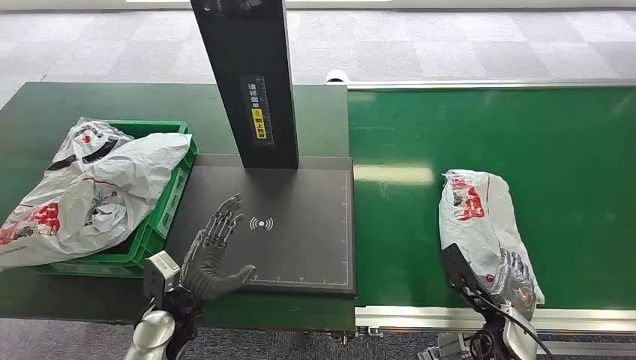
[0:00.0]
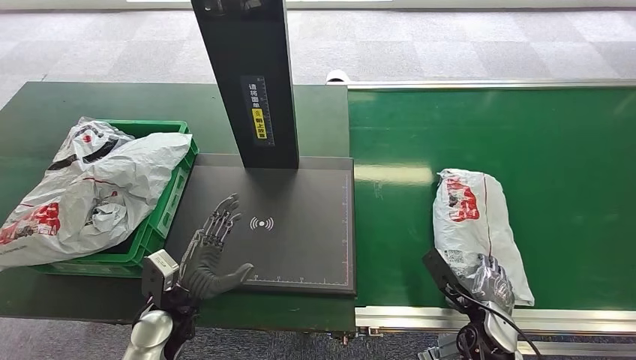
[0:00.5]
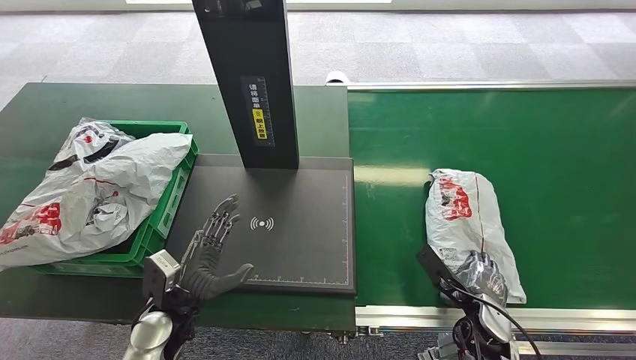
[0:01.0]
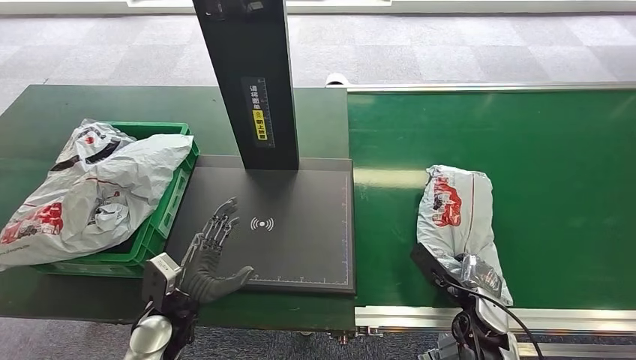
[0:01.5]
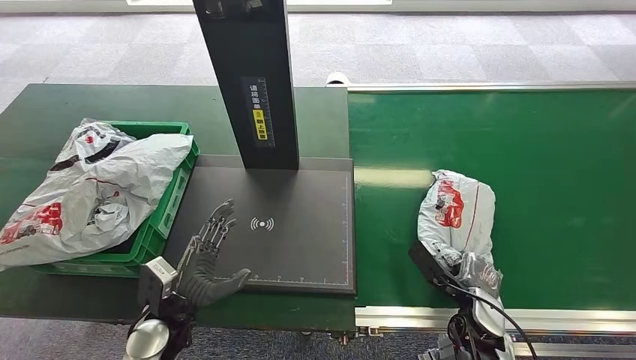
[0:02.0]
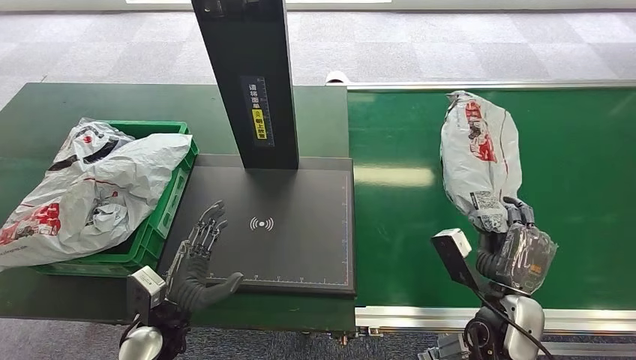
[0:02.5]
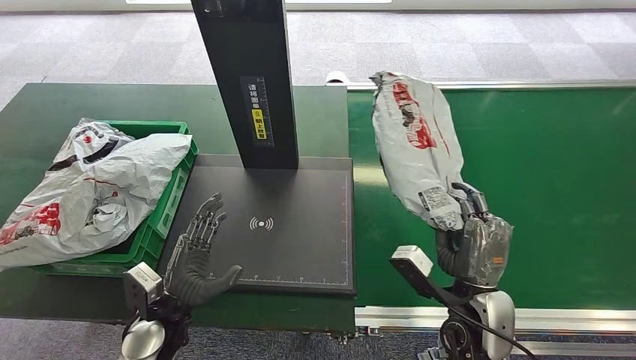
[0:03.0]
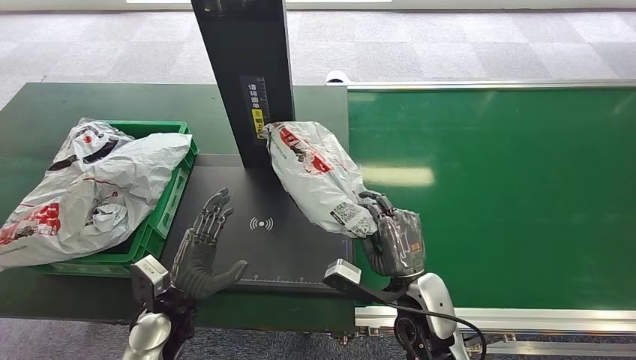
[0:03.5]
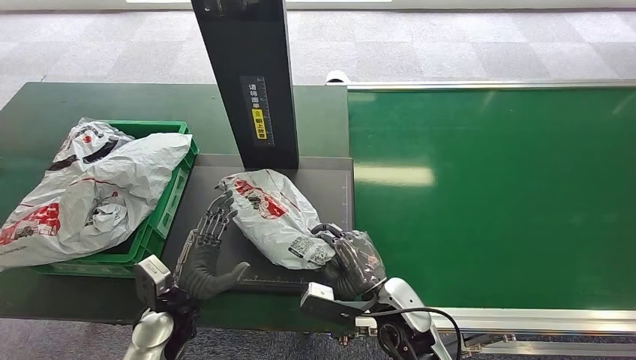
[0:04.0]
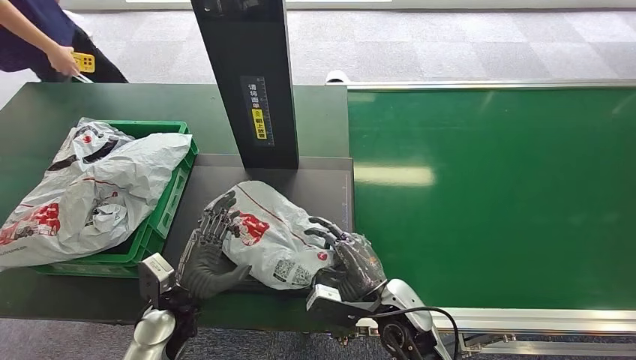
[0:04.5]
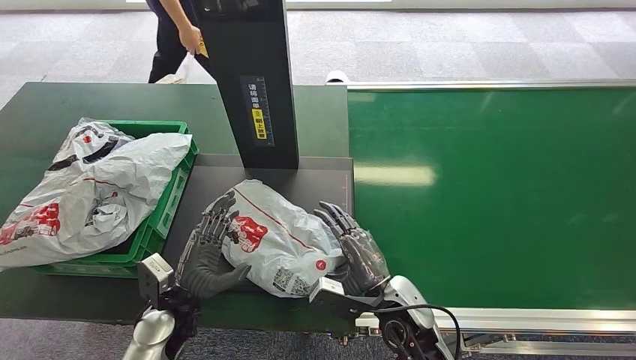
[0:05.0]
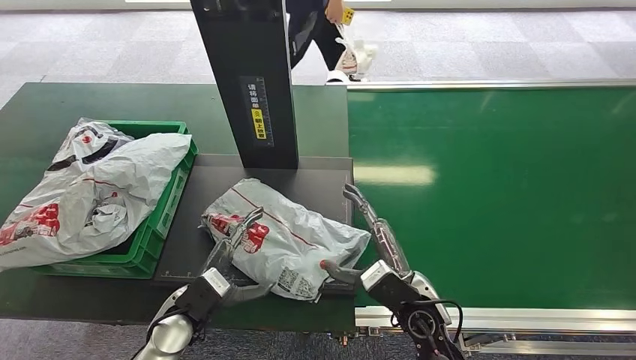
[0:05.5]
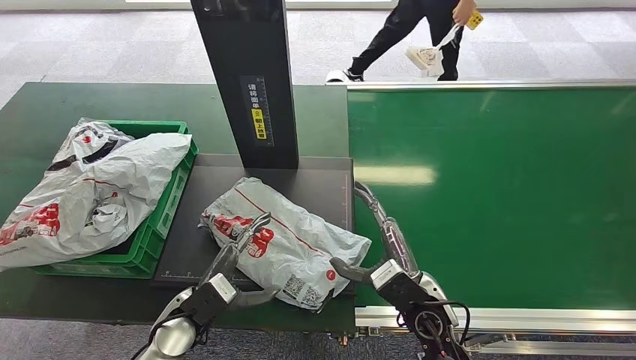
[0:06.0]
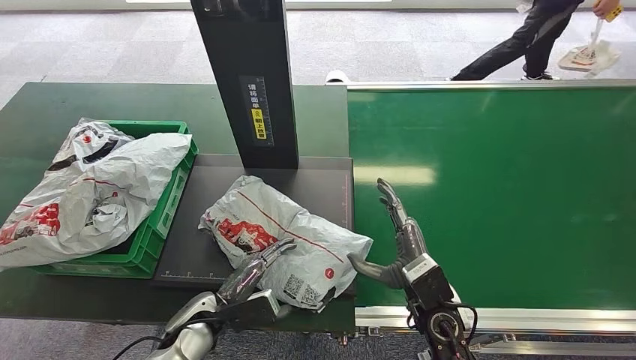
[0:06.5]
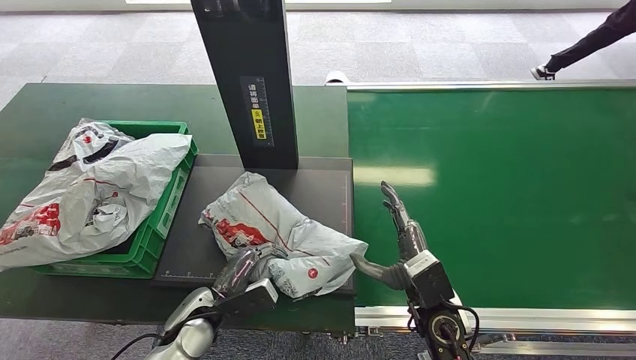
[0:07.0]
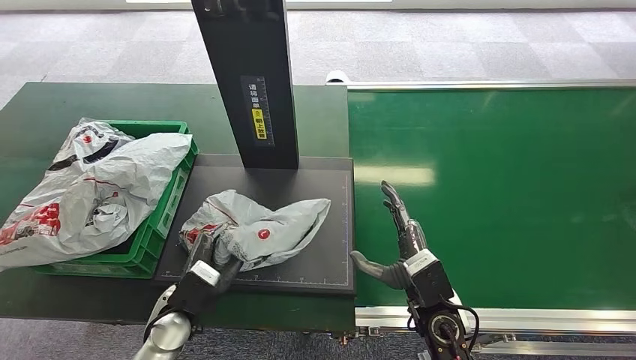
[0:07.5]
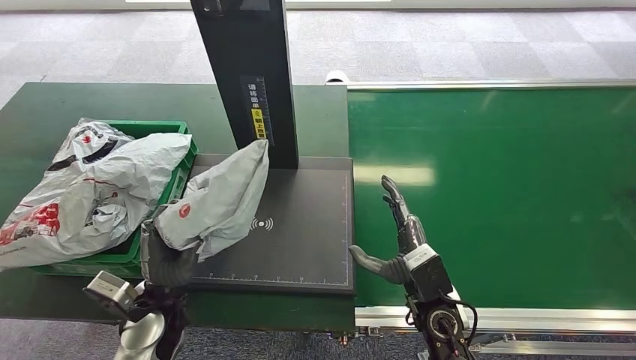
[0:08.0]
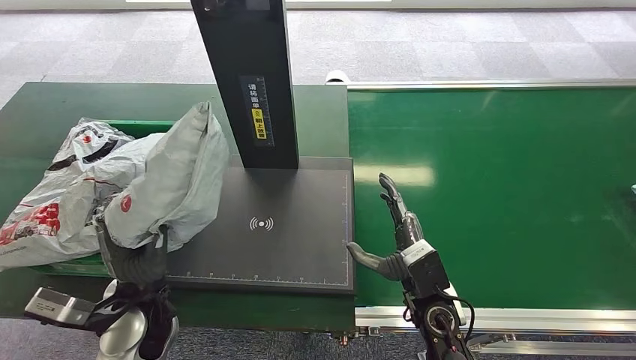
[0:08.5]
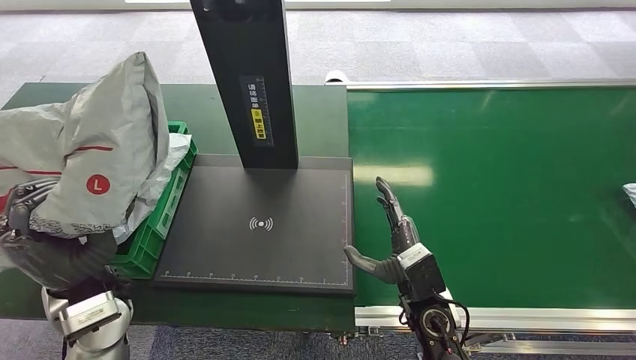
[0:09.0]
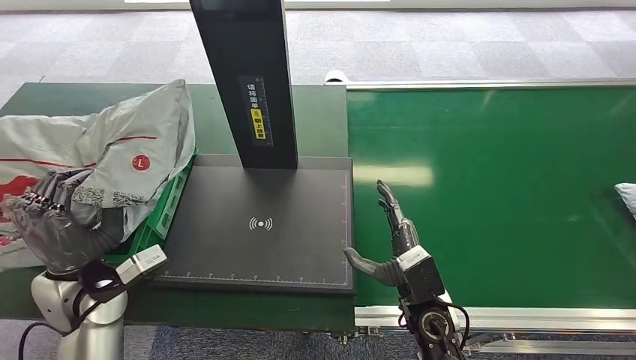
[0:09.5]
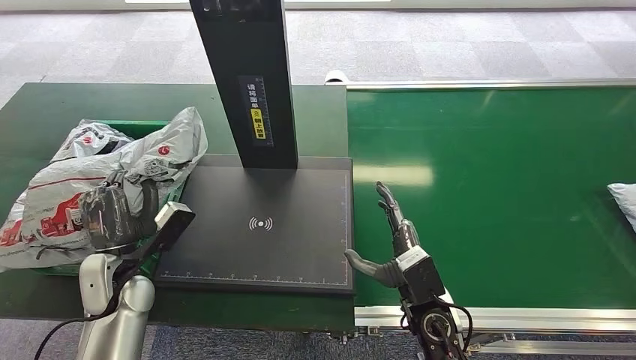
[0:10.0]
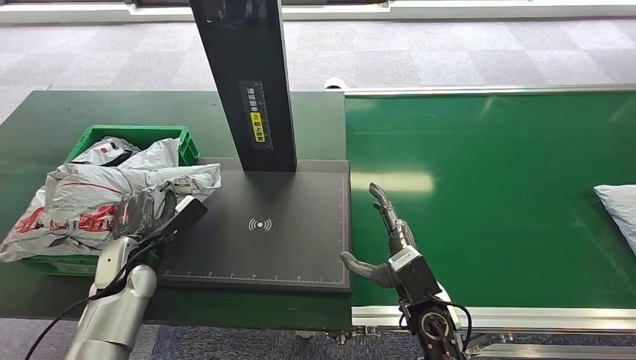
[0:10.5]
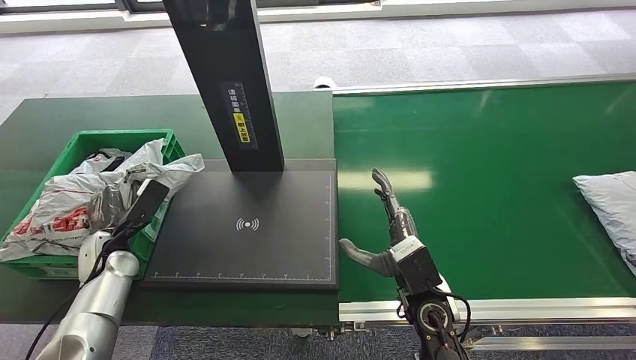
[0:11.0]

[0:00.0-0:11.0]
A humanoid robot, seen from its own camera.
Step, 0:00.0 to 0:02.0: Pick up the package from the conveyor belt.
Step, 0:04.0 to 0:05.5: Place the package onto the inbound machine.
Step, 0:06.0 to 0:08.0: Pick up the package from the inbound machine.
0:07.5 to 0:09.0: The left hand shifts approximately 15 cm upward.

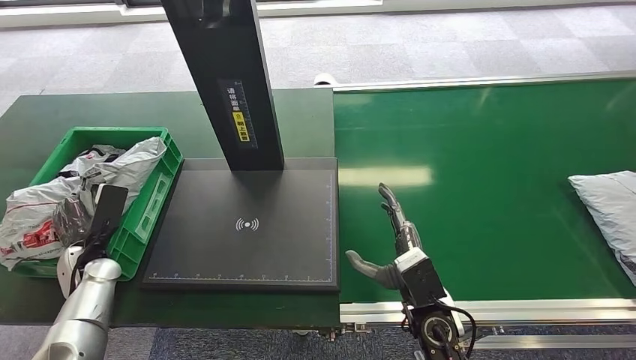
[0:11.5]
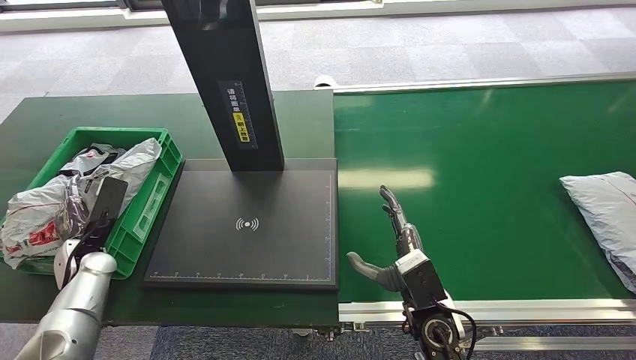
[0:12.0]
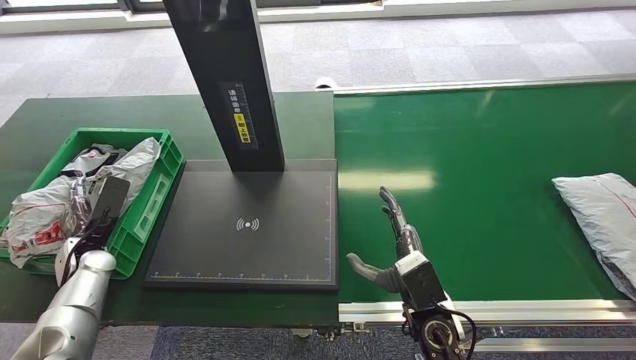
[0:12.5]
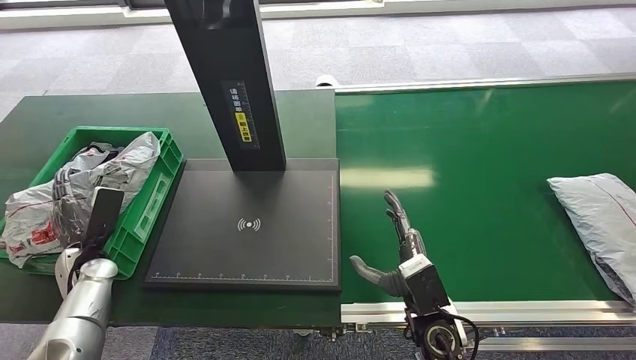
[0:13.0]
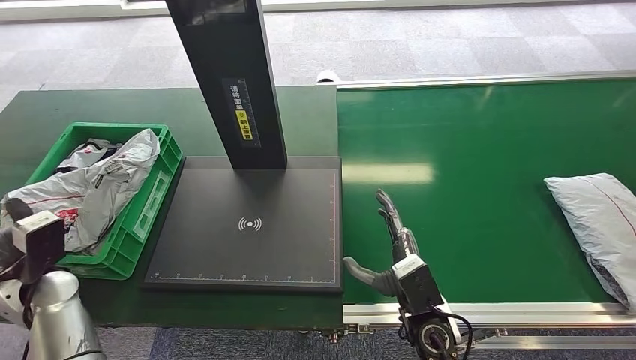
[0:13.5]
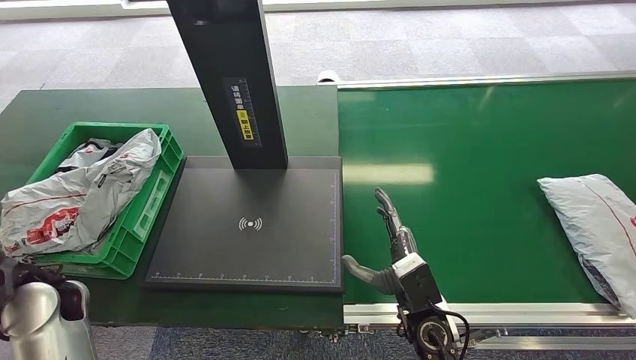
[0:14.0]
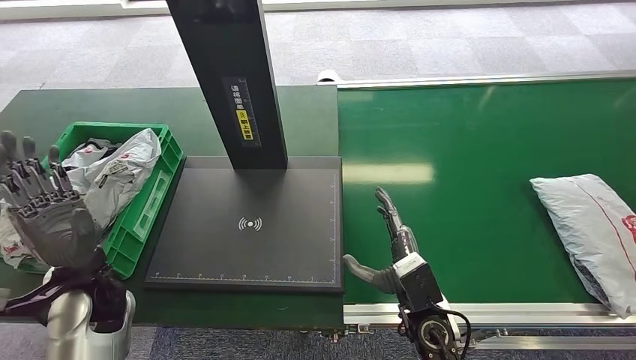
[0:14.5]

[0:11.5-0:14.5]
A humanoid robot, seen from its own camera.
Step, 0:11.5 to 0:14.5: Place the package into the parcel locker.
0:11.5 to 0:13.0: The hands make only small movements.

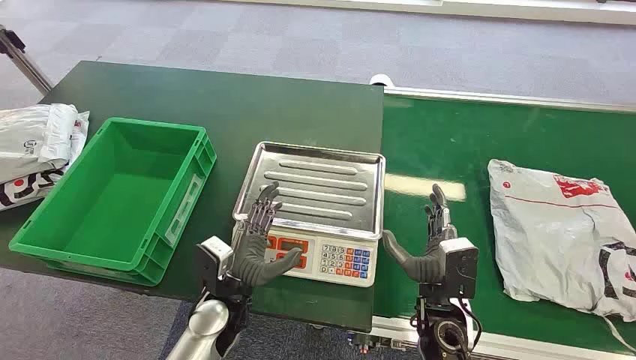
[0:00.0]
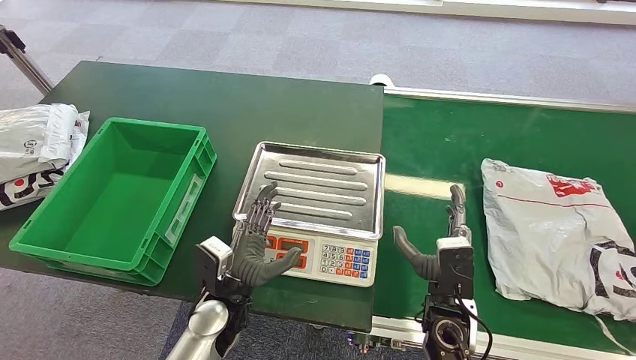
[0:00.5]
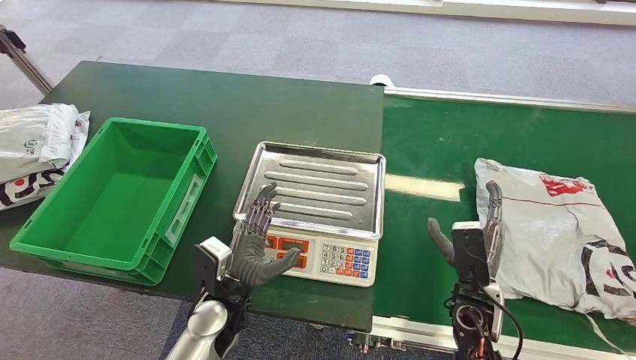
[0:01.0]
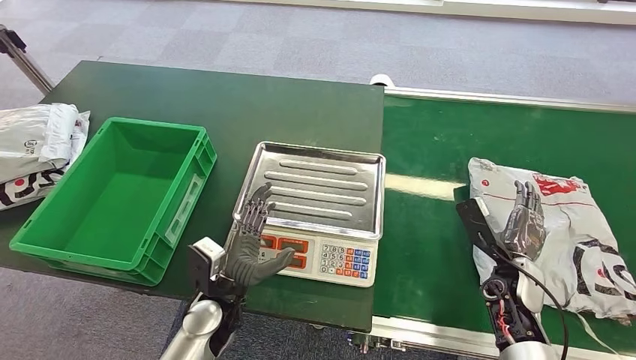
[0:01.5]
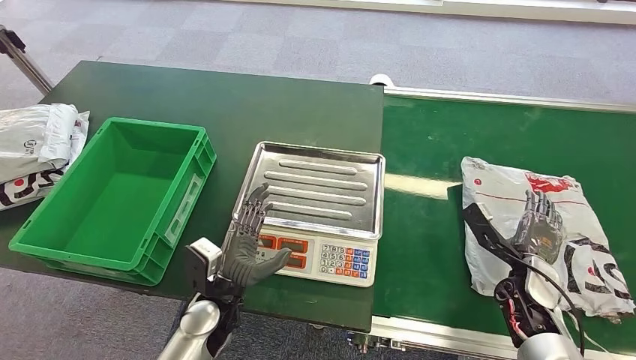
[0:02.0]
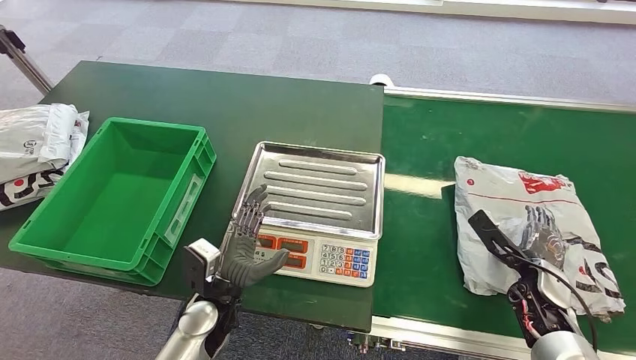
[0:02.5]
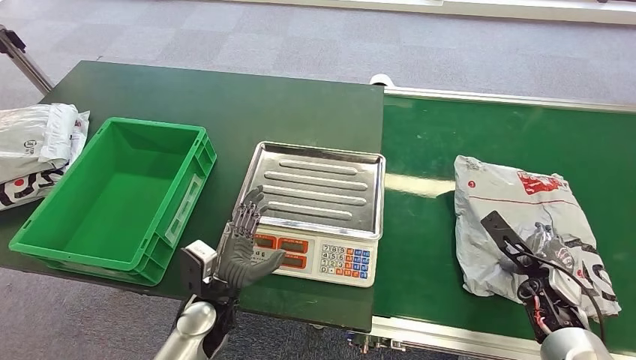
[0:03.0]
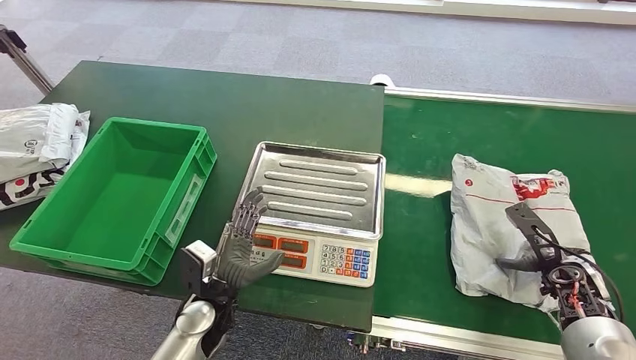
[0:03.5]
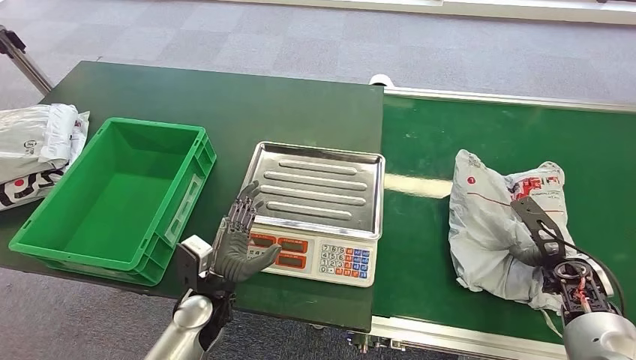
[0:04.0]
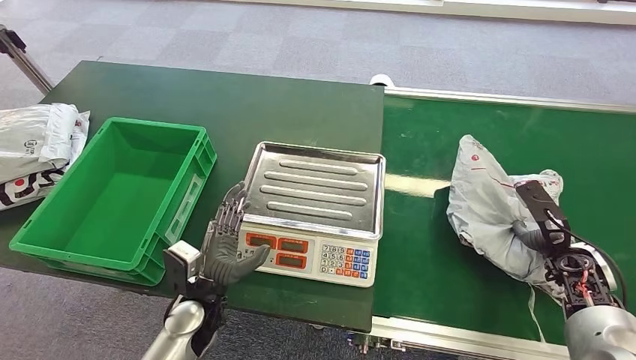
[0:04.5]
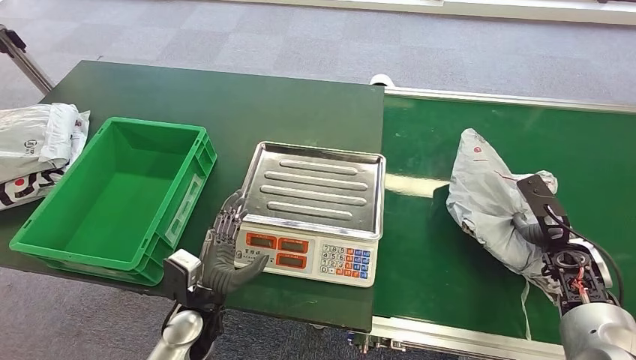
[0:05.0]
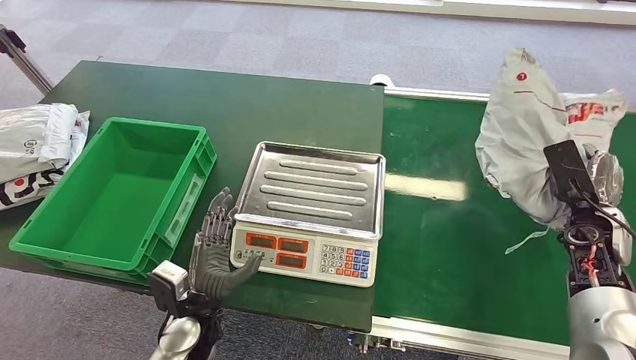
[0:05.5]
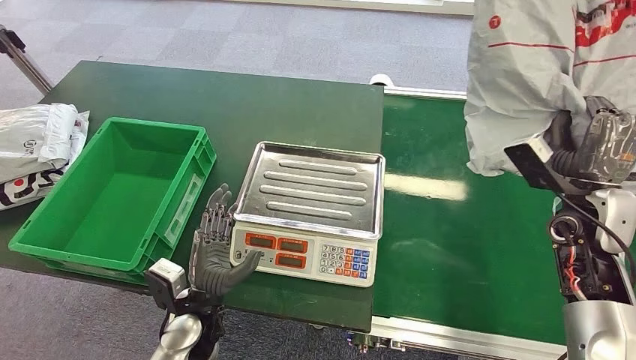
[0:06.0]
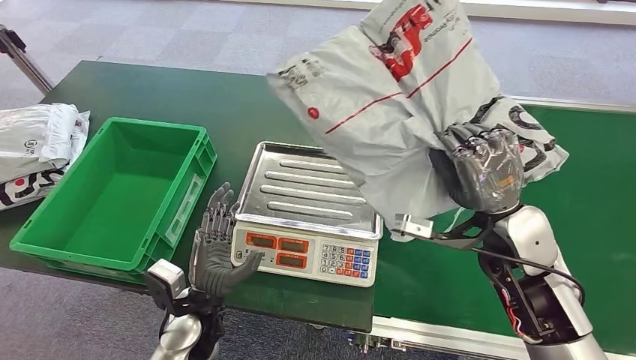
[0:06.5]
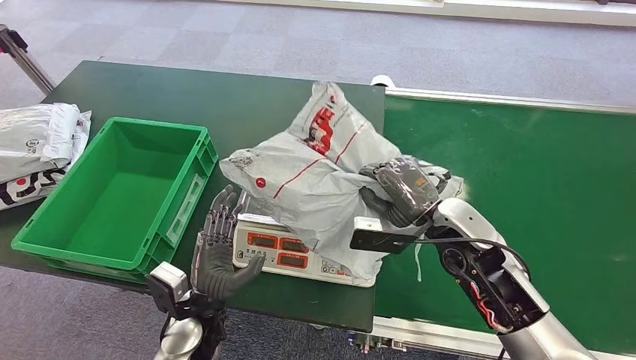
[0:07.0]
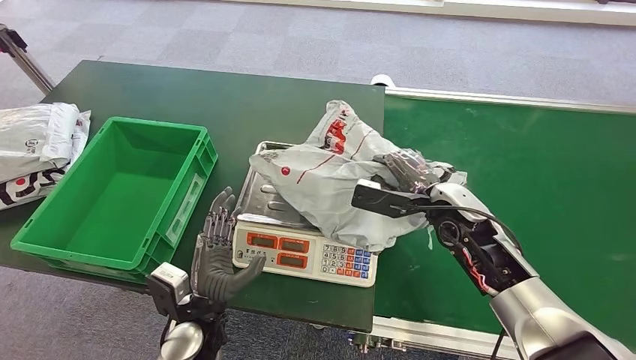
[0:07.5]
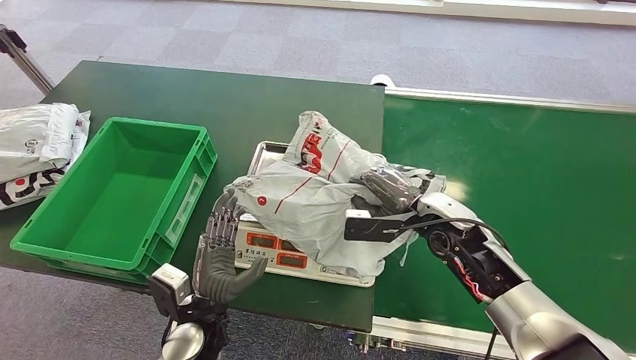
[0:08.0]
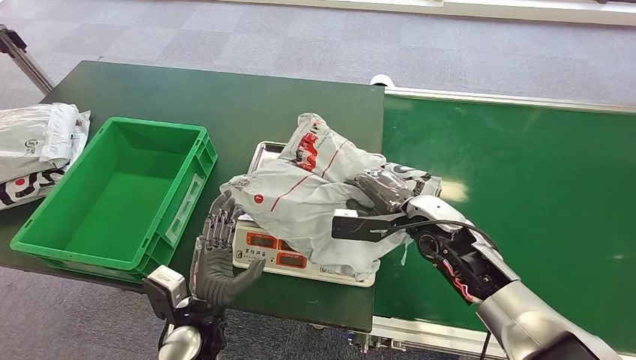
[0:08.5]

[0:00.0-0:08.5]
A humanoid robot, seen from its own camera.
Step, 0:00.0 to 0:06.0: Pick up the package from the conveyor belt.
0:02.0 to 0:04.0: The right hand goes roughly 5 cm to the right.
